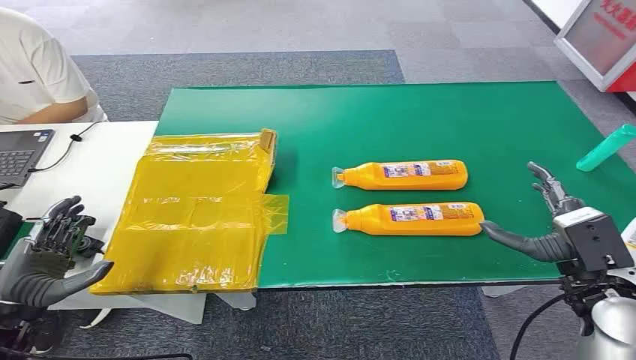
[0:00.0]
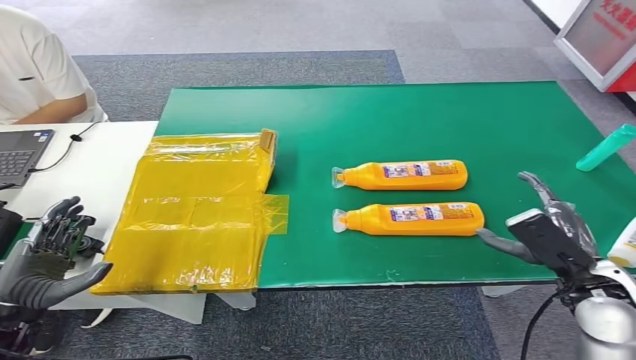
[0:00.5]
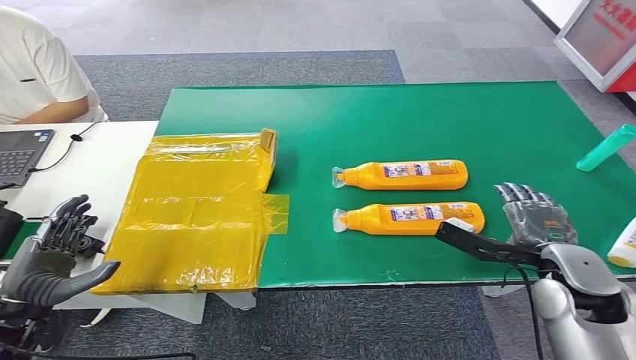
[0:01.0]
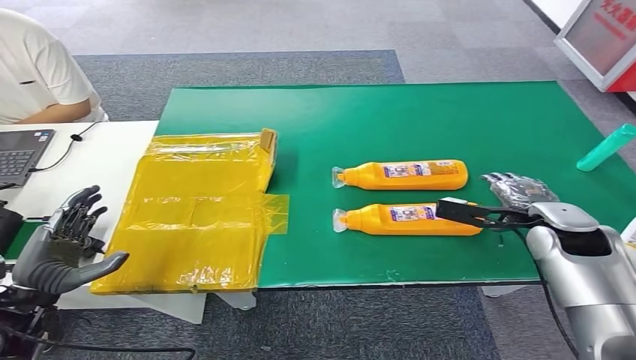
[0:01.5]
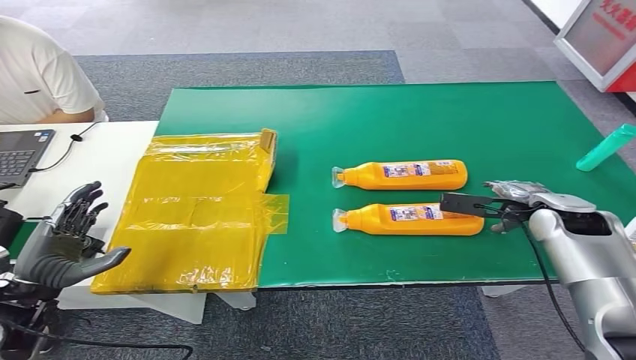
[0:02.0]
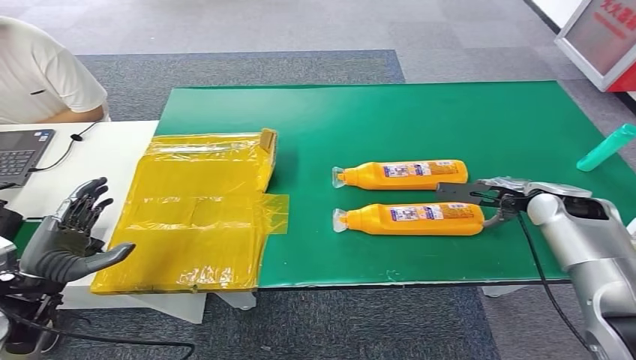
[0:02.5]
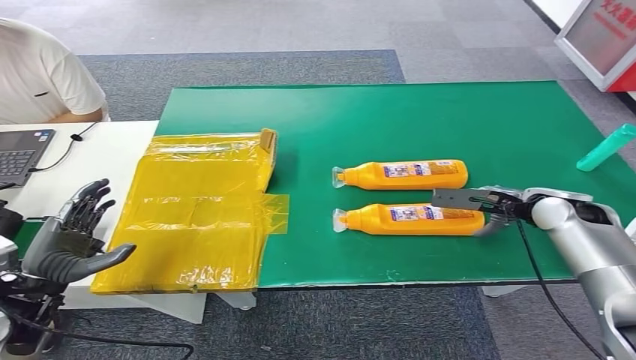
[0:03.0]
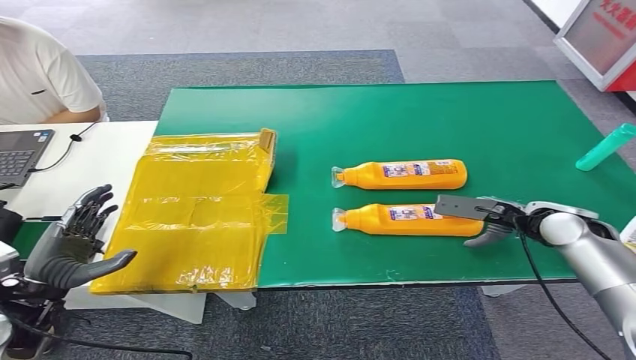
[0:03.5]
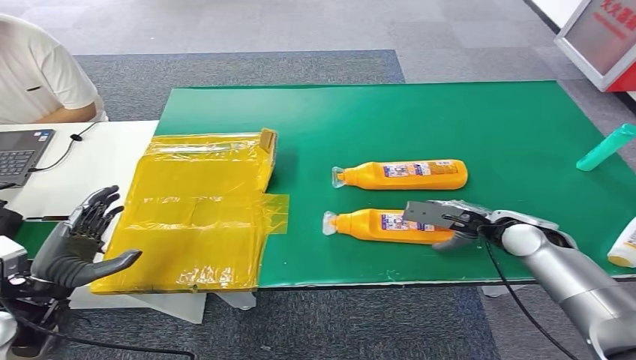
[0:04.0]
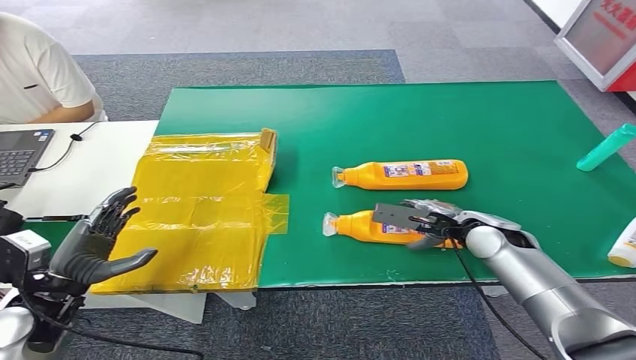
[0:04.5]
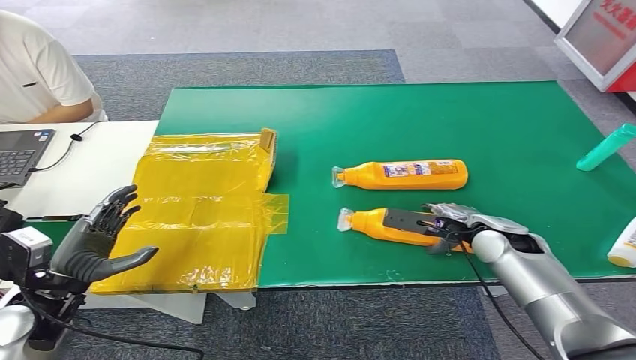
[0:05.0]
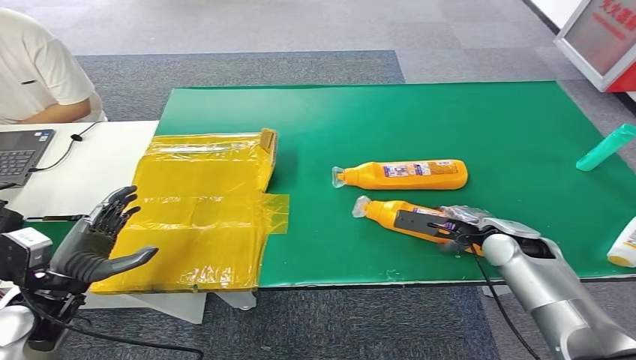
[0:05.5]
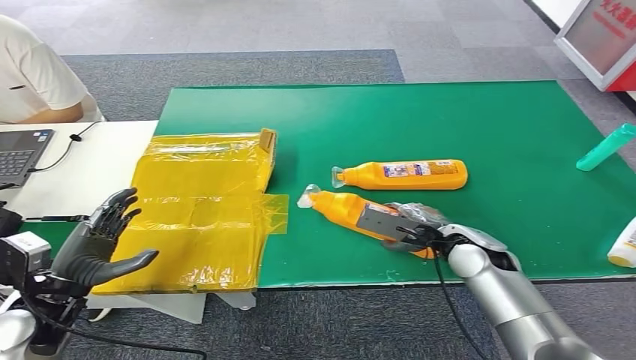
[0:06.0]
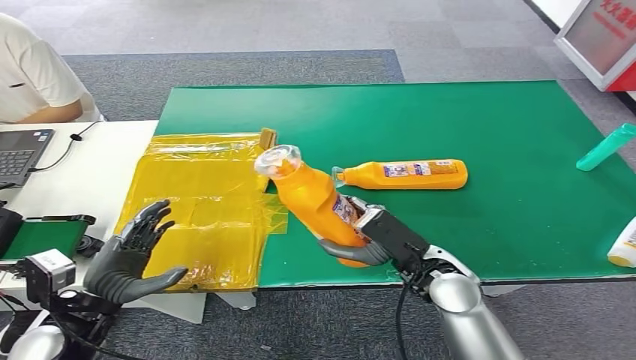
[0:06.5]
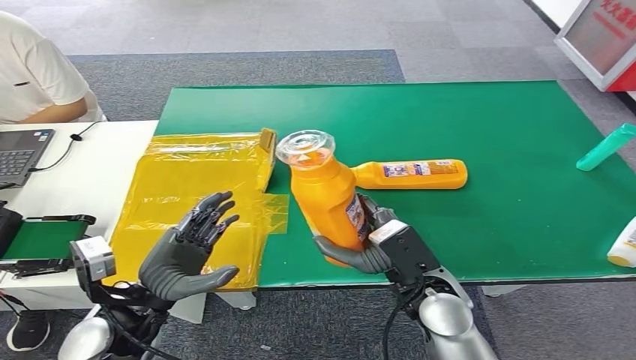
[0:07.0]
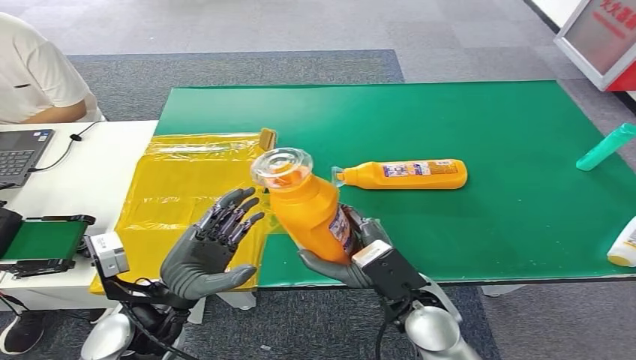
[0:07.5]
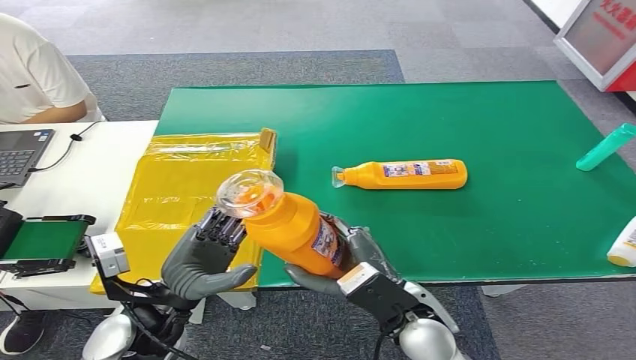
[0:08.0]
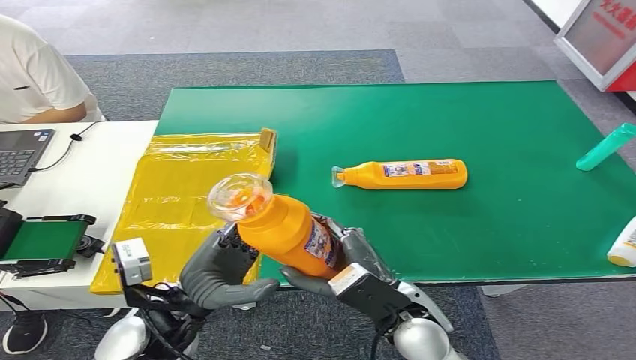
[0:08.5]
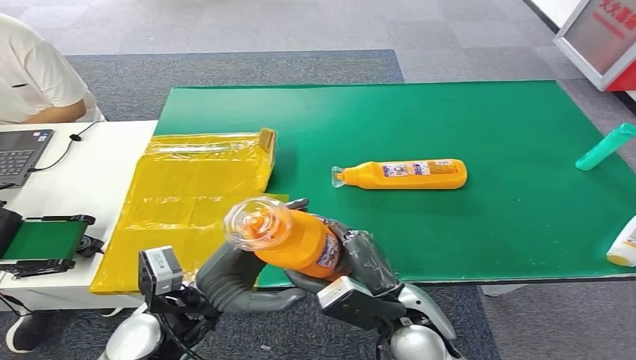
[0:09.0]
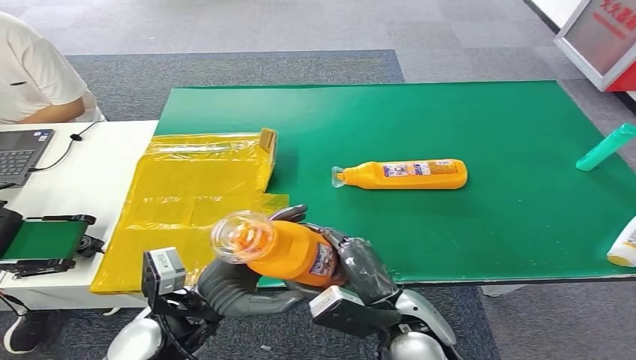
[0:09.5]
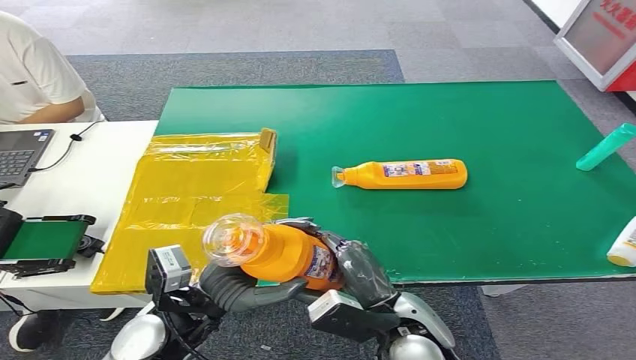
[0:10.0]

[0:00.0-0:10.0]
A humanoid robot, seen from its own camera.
Step, 0:00.0 to 0:06.0: Pick up the bottle from the table.
0:02.0 to 0:04.0: The right hand ends up some 5 cm from where it was.
0:04.0 to 0:06.0: The right hand goes about 10 cm to the left.
0:08.0 to 0:10.0: The hands move only a little.

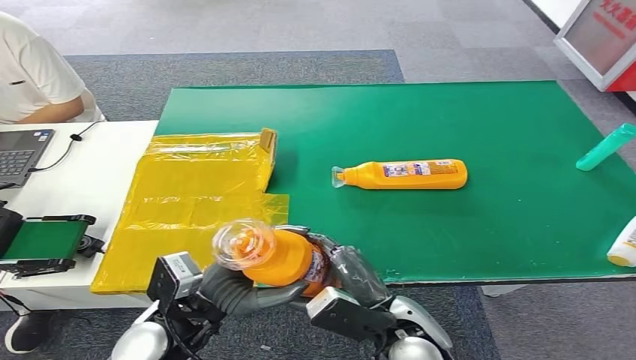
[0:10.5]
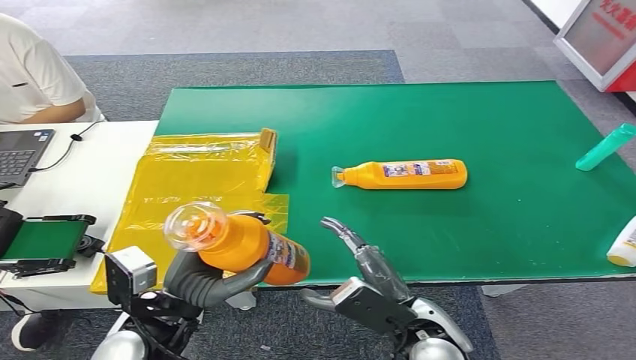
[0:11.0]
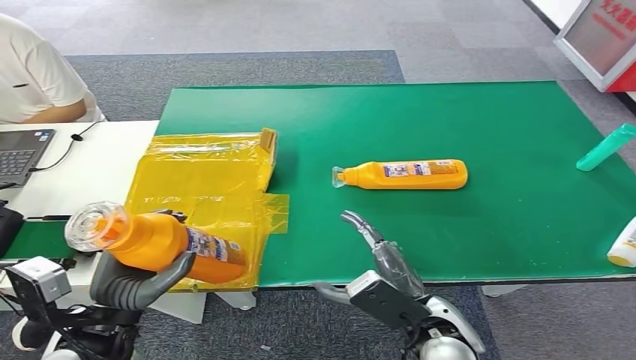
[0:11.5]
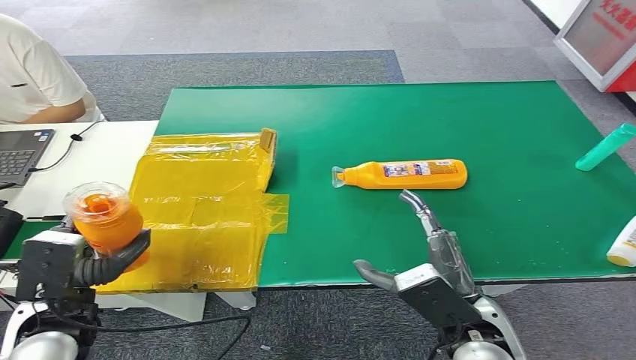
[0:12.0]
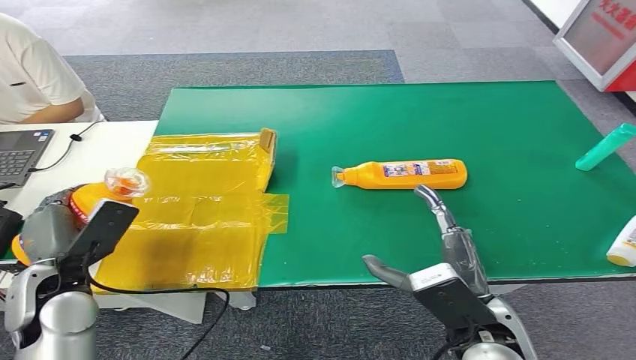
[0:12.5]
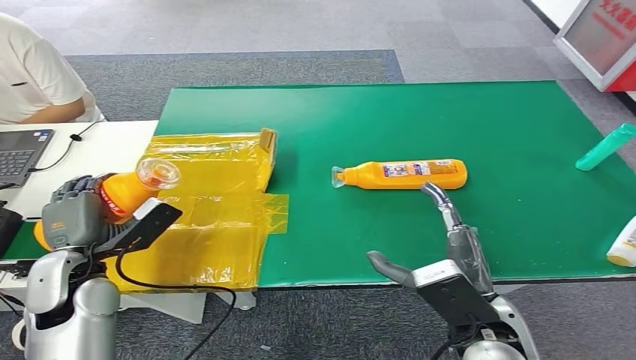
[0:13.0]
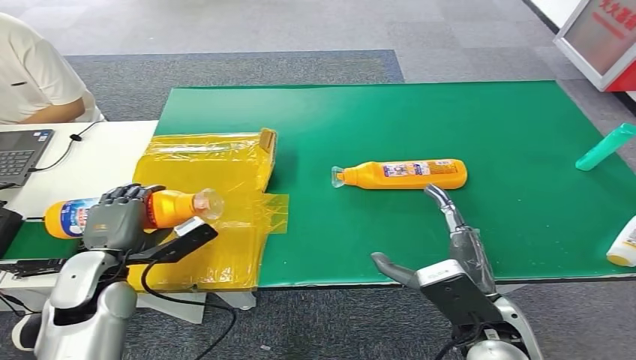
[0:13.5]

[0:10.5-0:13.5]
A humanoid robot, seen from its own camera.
Step, 0:10.5 to 0:13.5: Turn the bottle to the front side.
0:10.5 to 0:12.0: The left hand moves to the left, about 15 cm; the right hand is displaced to the right by approximately 5 cm.
0:12.0 to 0:13.5: The left hand travels forward by some 10 cm.
